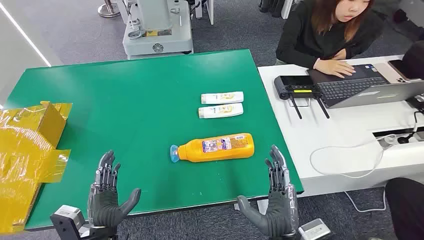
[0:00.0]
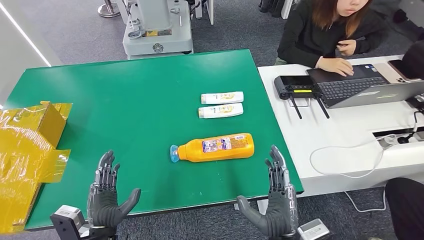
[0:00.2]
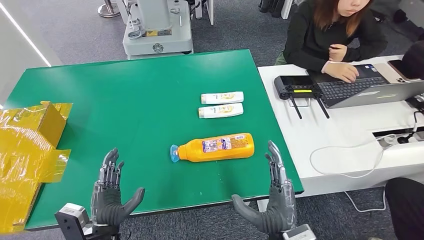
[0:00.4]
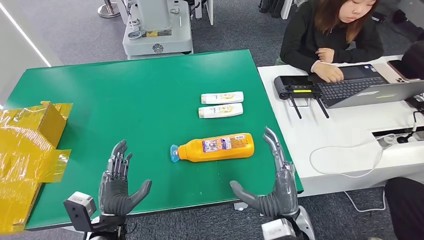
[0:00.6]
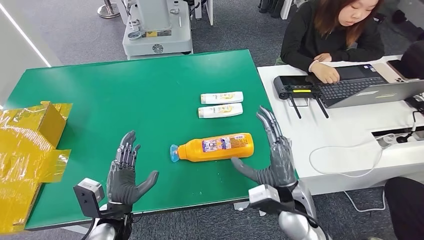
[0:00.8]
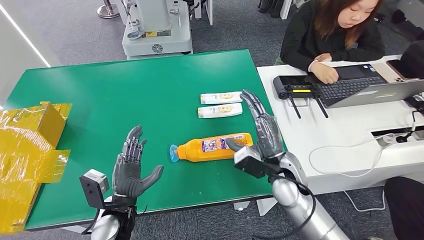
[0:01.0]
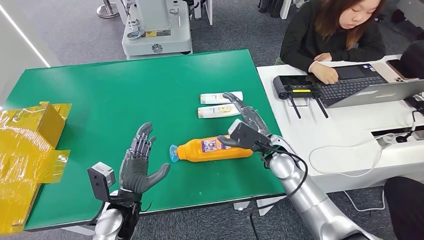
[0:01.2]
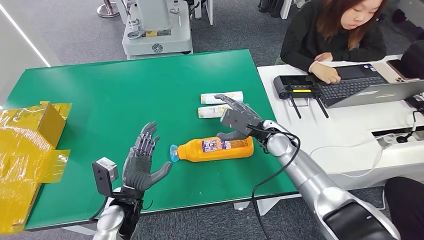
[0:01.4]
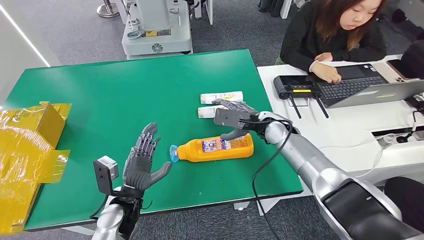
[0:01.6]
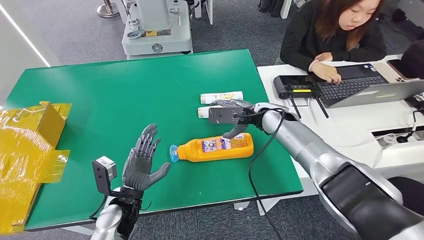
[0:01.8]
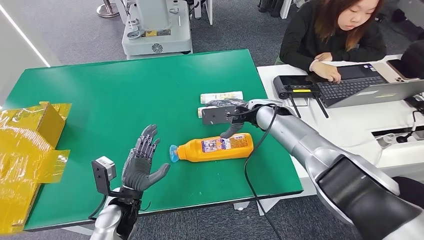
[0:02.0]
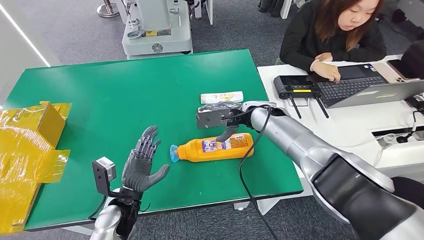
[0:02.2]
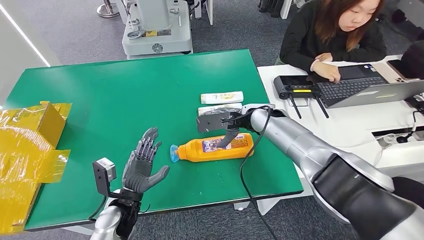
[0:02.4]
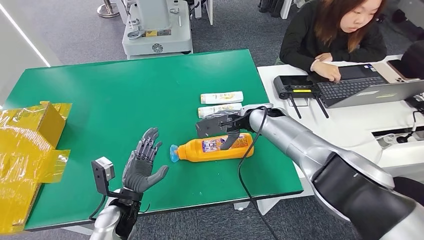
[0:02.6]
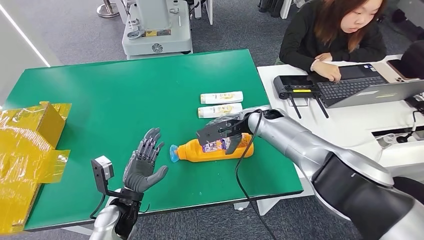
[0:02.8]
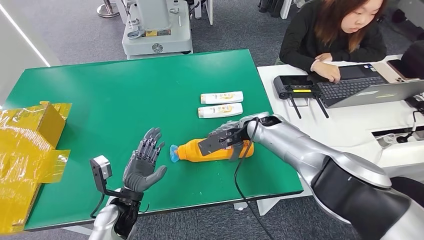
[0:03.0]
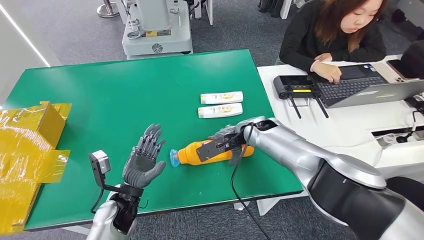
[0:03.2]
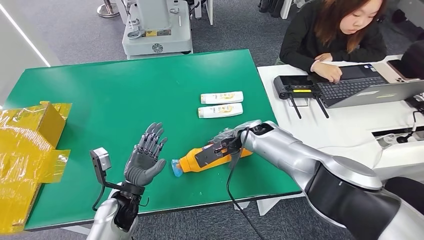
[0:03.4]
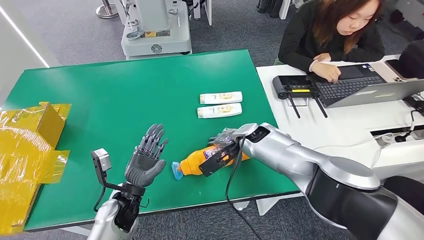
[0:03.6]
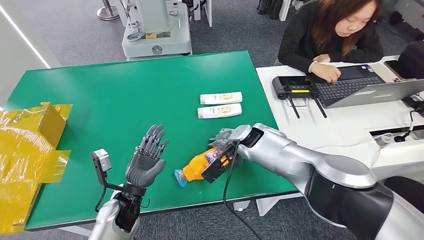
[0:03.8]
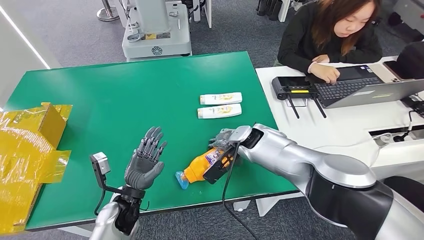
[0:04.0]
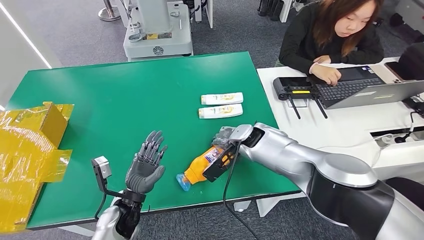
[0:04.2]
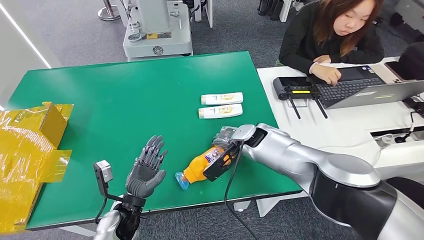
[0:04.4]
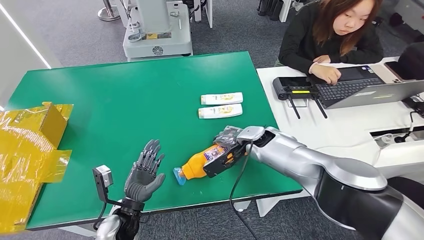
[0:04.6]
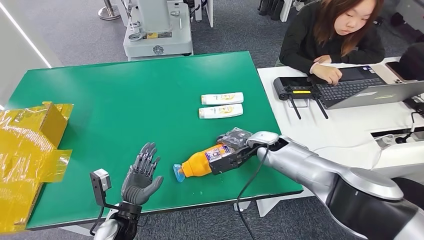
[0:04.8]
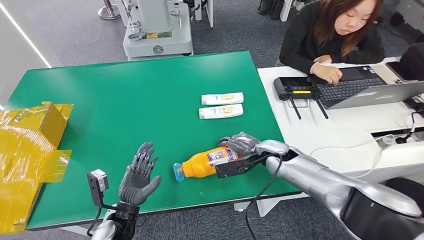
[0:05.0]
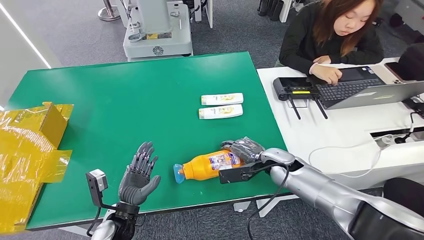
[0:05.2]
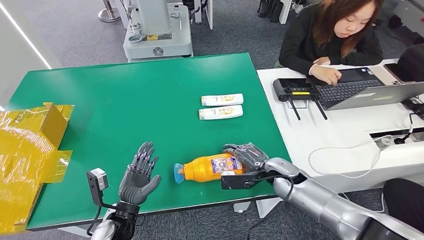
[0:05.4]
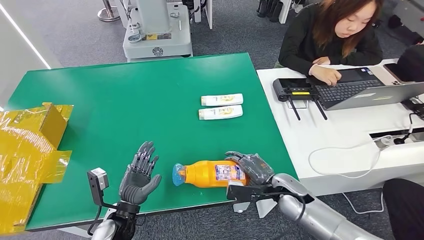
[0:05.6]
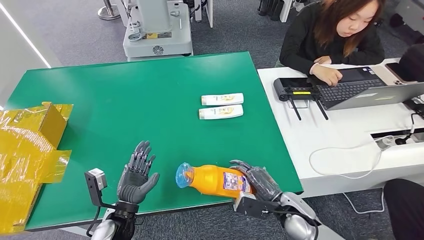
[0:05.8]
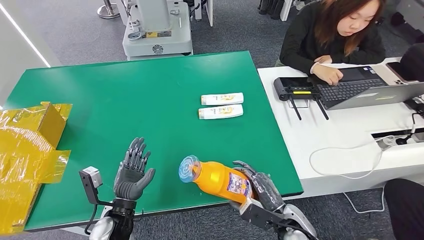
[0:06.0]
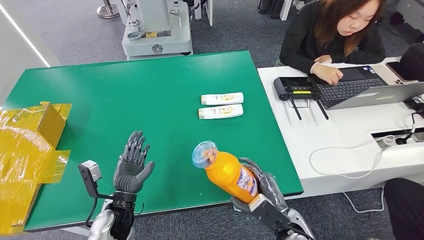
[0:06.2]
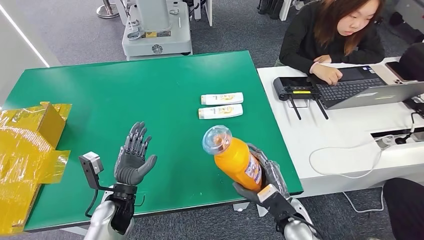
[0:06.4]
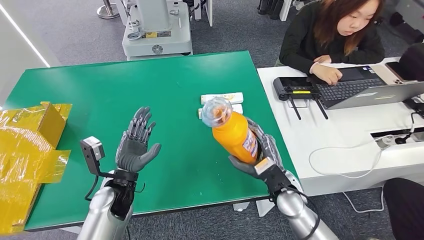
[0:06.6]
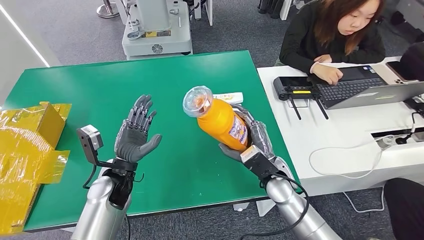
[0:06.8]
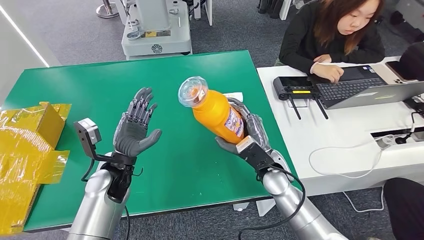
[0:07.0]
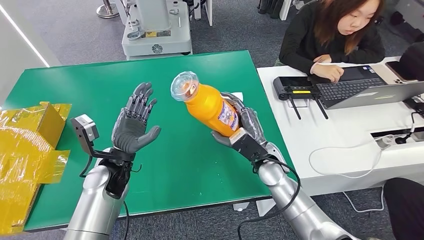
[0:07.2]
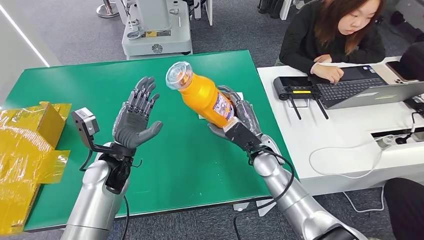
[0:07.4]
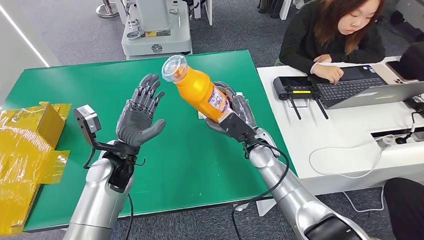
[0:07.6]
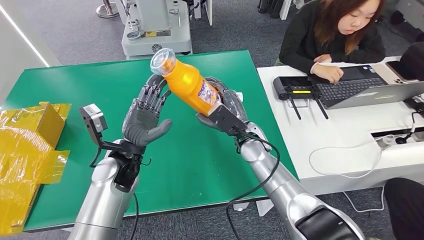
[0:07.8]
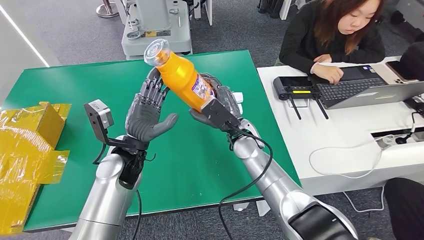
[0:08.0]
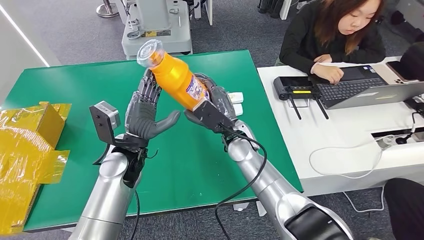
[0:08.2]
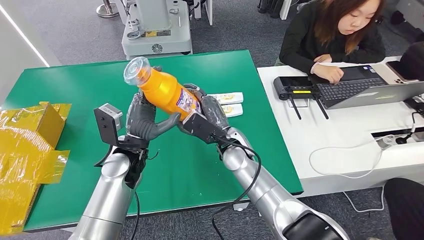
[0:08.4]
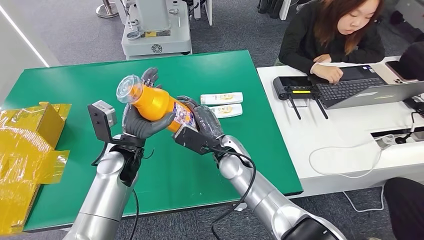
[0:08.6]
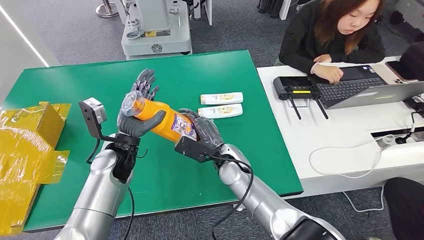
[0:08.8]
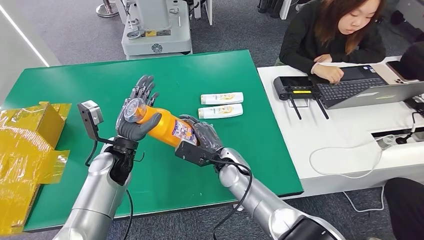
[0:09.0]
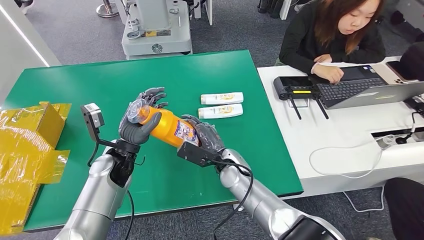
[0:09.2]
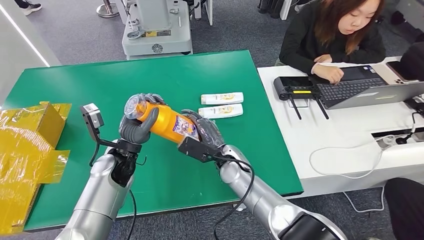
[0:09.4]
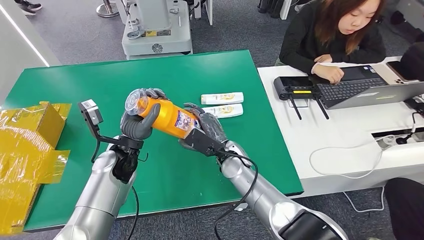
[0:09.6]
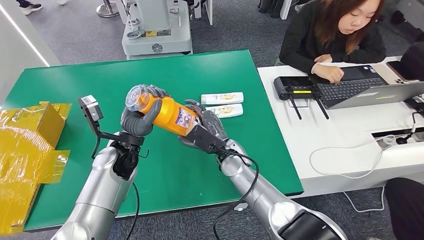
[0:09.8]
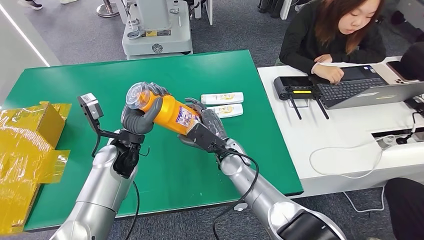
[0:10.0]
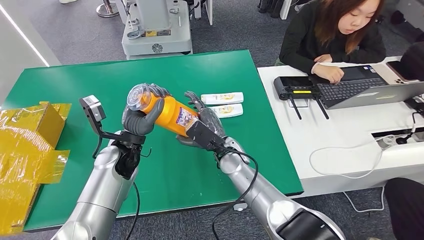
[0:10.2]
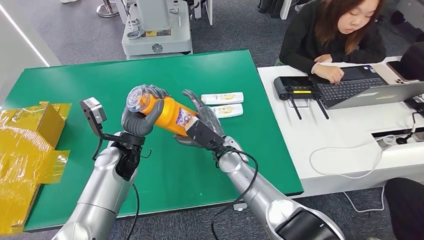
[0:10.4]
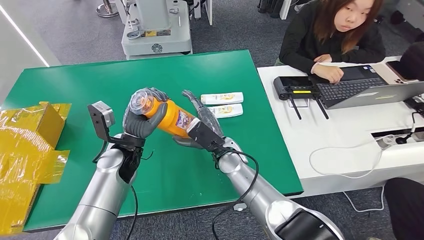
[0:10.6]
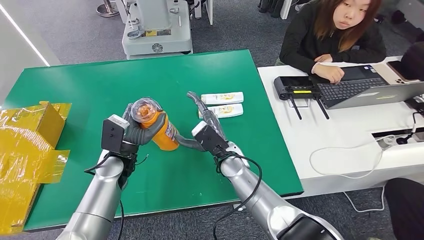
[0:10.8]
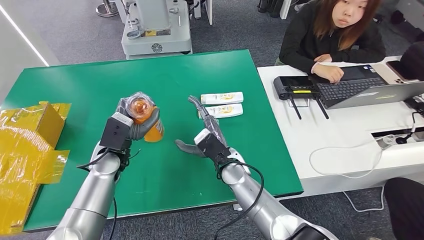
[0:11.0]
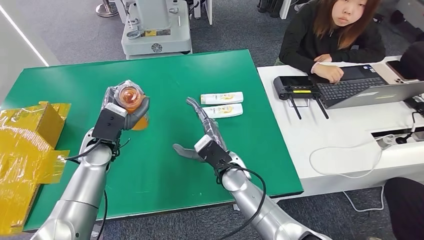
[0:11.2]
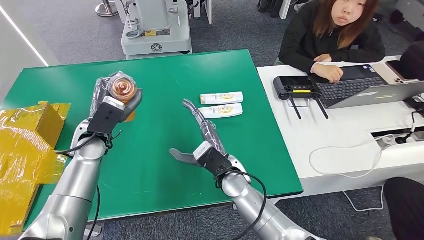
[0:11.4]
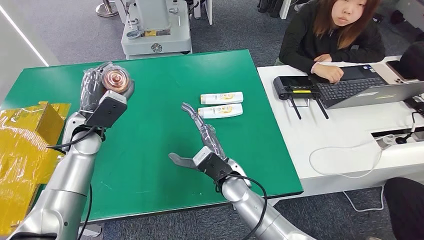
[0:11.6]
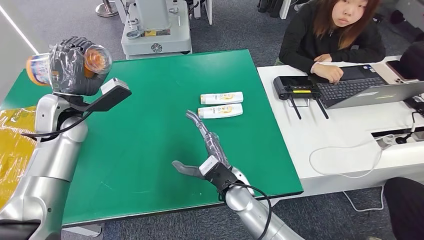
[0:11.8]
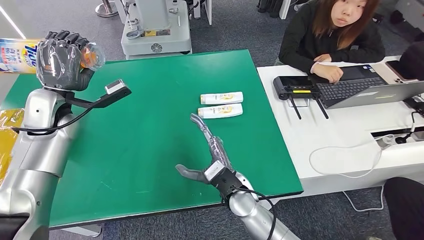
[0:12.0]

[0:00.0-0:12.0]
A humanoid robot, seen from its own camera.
Step, 0:00.0 to 0:06.0: Pick up the bottle from the table.
0:07.6 to 0:09.0: The right hand goes about 10 cm to the left.
0:09.0 to 0:10.4: The hands stay close to where they were, moving slightly.

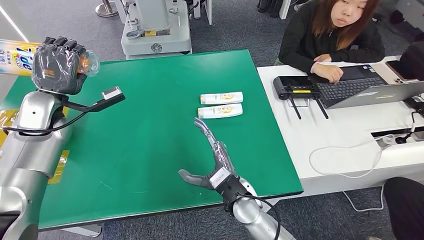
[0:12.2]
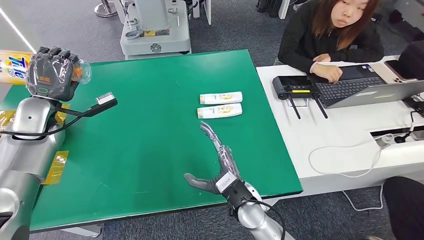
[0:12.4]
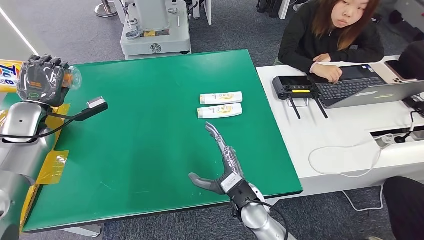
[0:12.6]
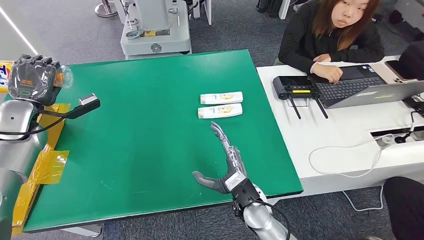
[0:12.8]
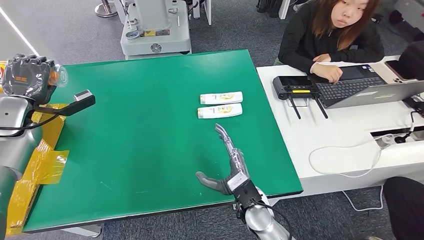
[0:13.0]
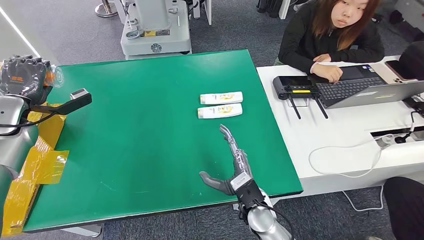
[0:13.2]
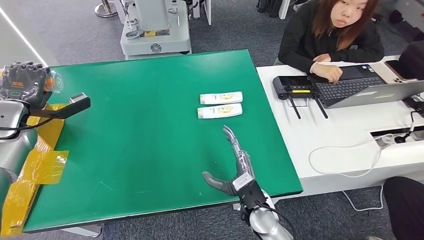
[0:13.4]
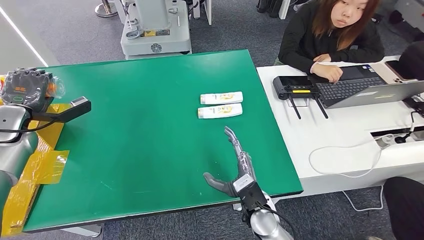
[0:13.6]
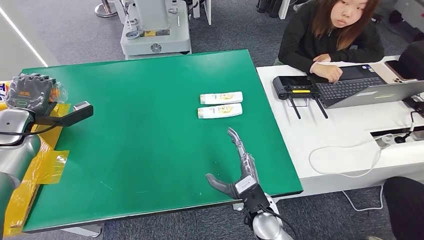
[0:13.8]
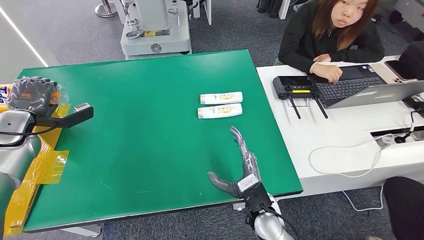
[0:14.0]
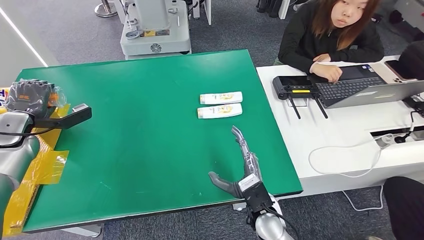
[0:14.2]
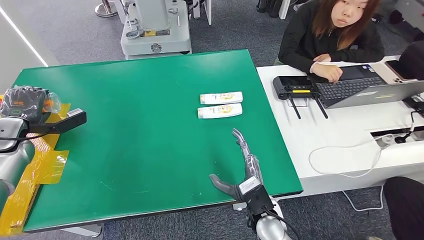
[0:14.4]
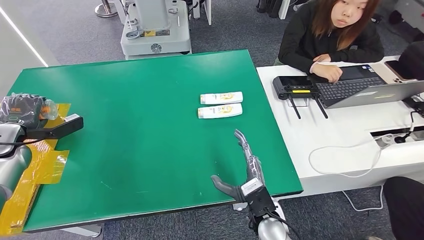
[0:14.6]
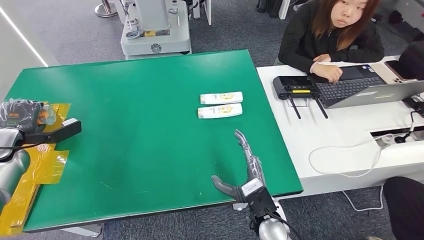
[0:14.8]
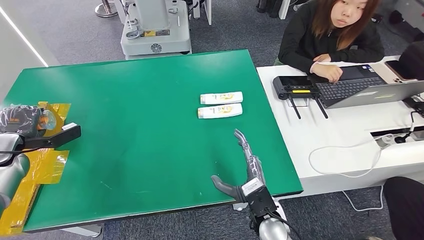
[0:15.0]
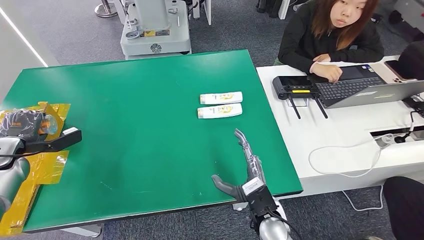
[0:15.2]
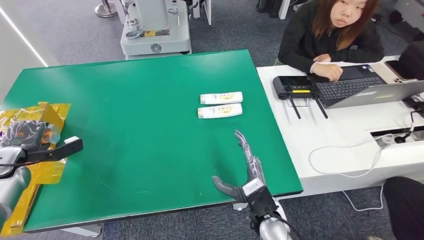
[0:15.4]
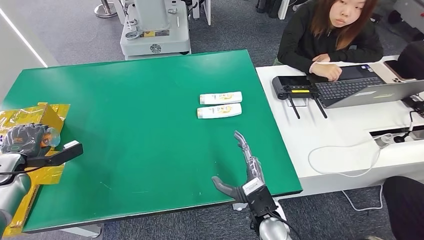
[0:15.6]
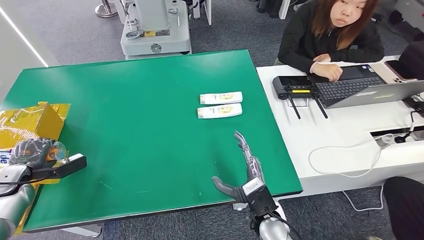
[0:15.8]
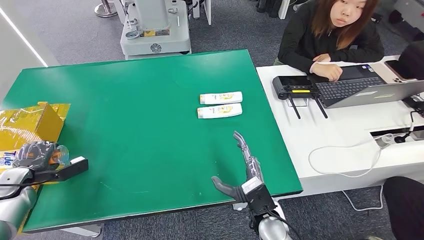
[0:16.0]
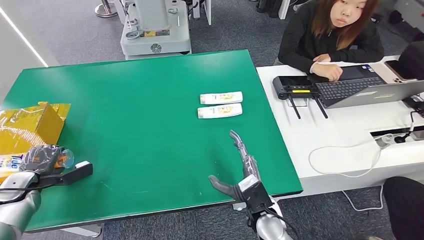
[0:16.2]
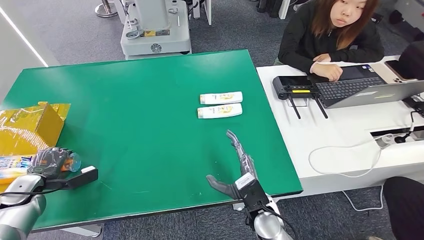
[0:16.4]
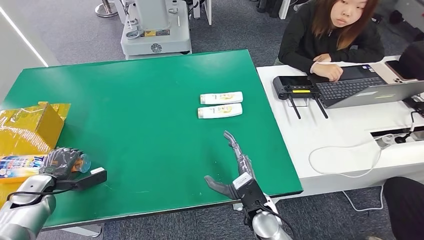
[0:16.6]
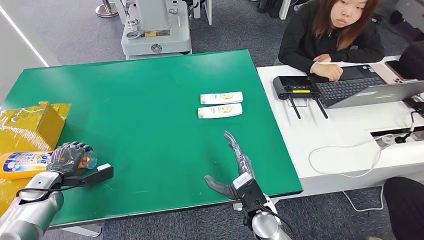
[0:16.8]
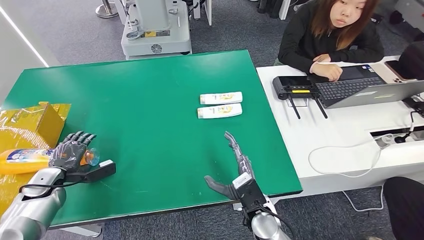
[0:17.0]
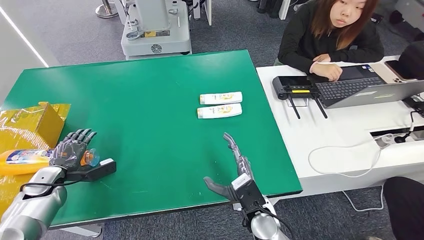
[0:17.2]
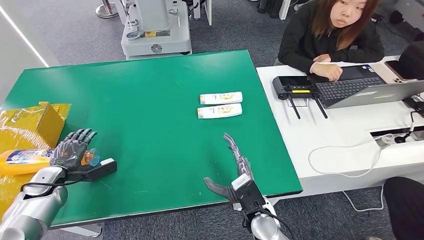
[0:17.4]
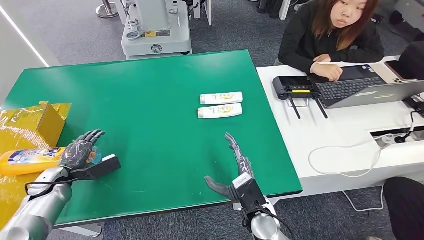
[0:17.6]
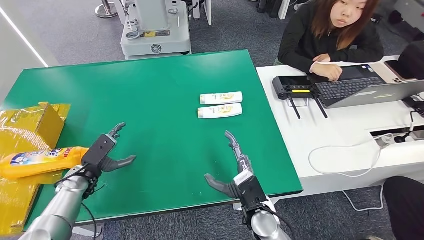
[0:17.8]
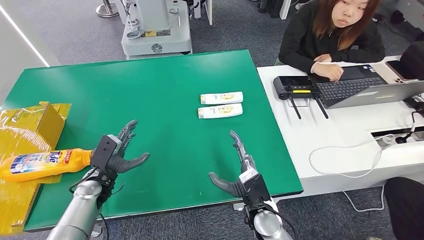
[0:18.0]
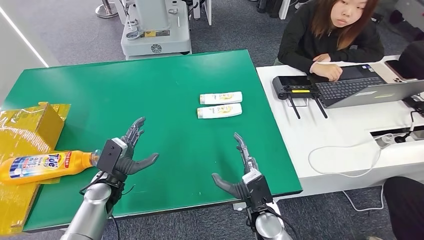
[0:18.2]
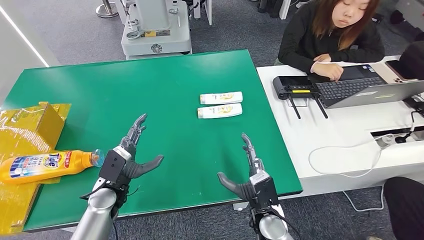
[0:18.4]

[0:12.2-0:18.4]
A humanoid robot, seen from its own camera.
Step, 0:12.2 to 0:18.4: Turn the bottle to the front side.
0:12.2 to 0:13.8: The right hand moves about 5 cm, while the left hand goes approximately 10 cm to the left.
0:13.8 to 0:15.4: The left hand goes about 10 cm downward and to the left.
0:15.4 to 0:16.8: The left hand travels downward and to the right by about 10 cm.
0:16.8 to 0:18.4: The left hand moves to the right, about 25 cm.
